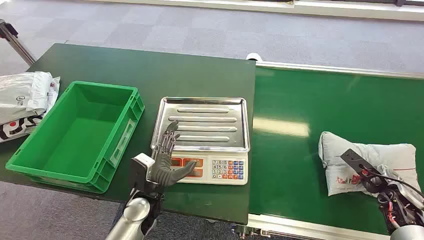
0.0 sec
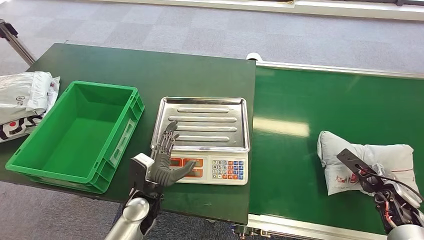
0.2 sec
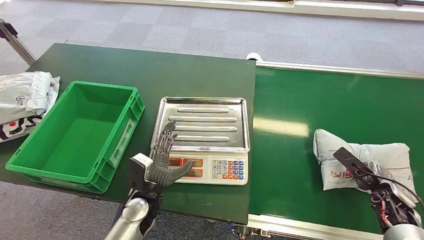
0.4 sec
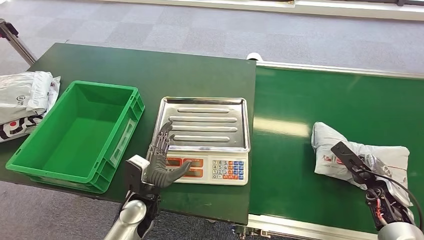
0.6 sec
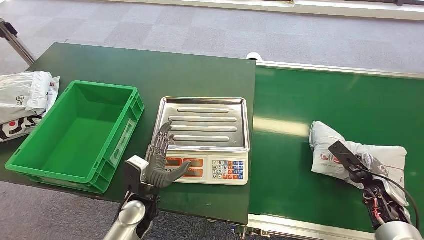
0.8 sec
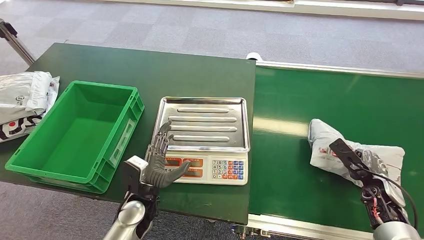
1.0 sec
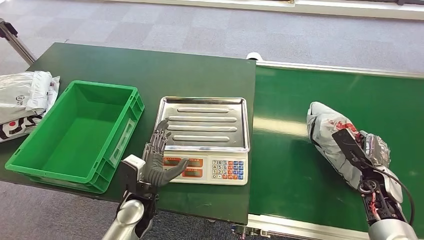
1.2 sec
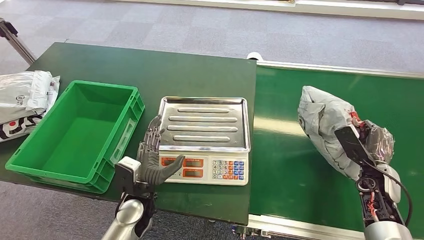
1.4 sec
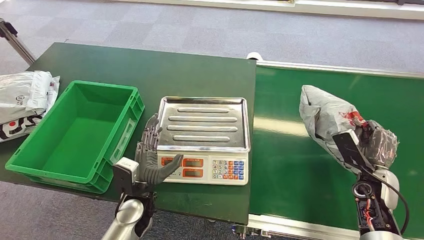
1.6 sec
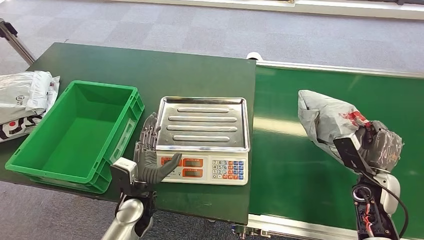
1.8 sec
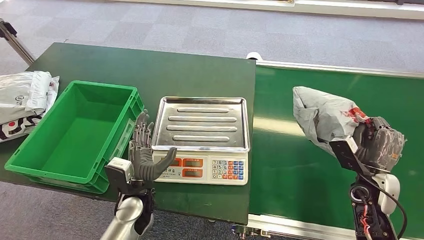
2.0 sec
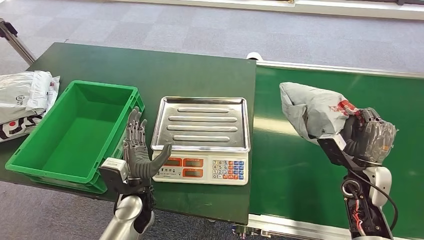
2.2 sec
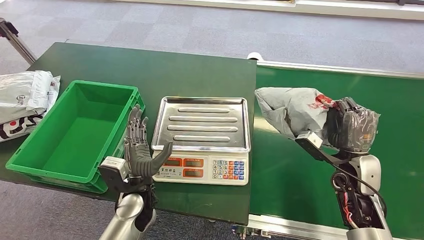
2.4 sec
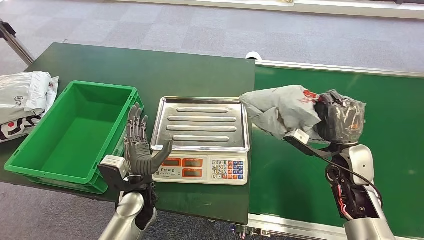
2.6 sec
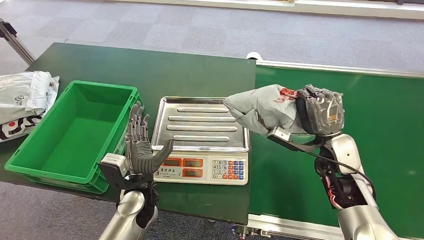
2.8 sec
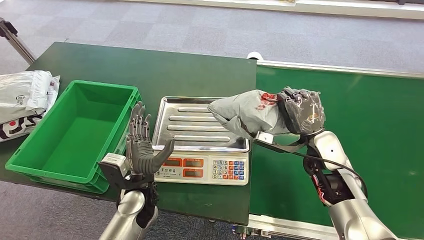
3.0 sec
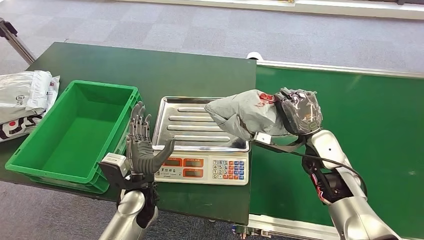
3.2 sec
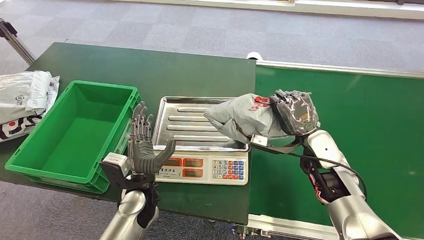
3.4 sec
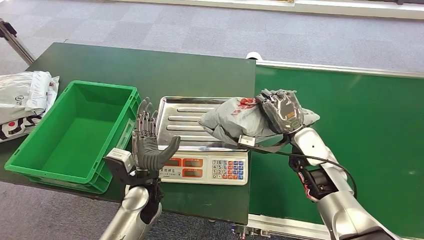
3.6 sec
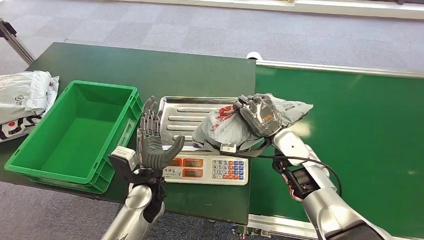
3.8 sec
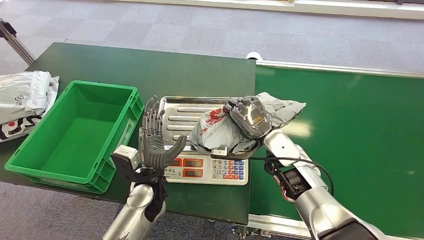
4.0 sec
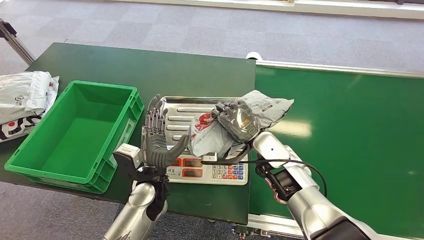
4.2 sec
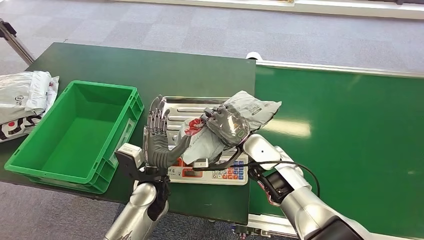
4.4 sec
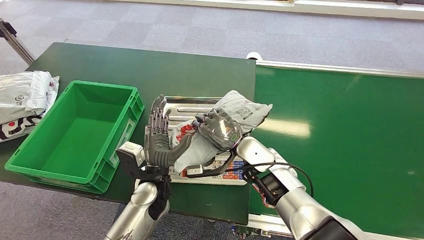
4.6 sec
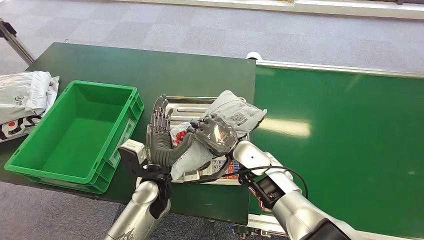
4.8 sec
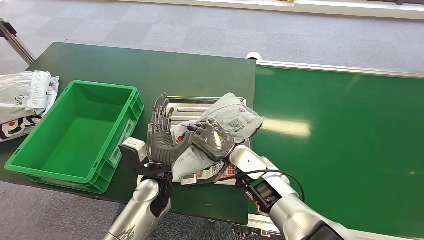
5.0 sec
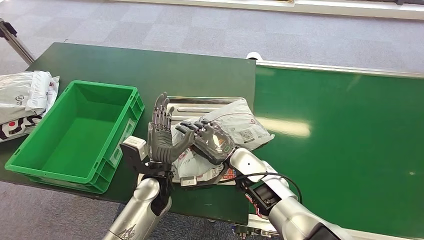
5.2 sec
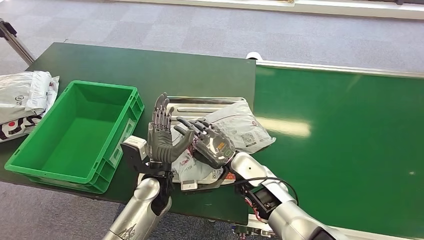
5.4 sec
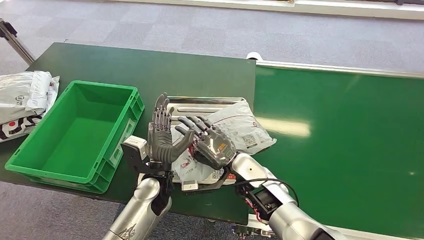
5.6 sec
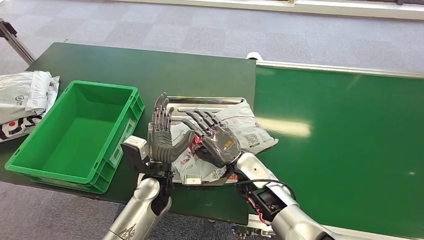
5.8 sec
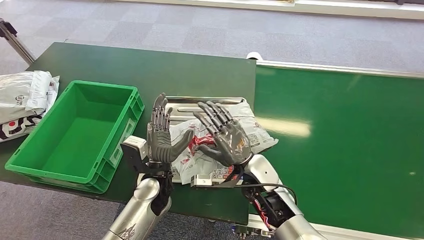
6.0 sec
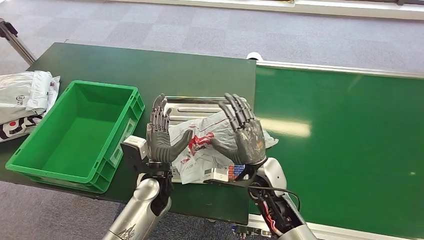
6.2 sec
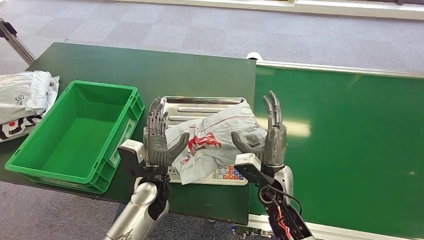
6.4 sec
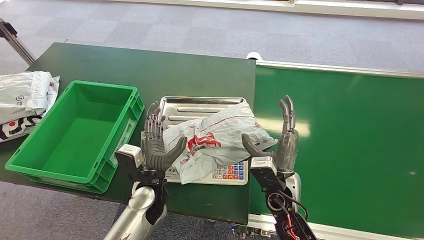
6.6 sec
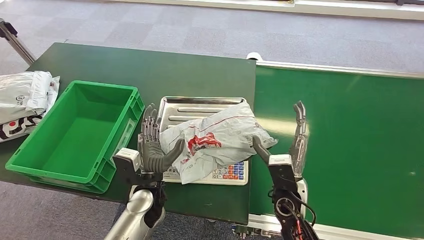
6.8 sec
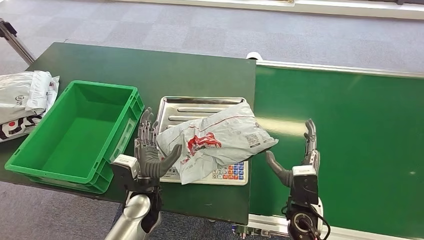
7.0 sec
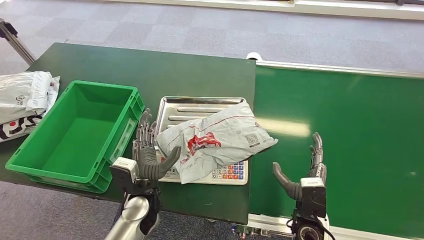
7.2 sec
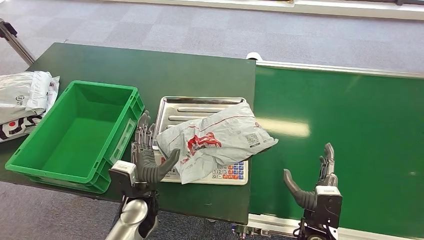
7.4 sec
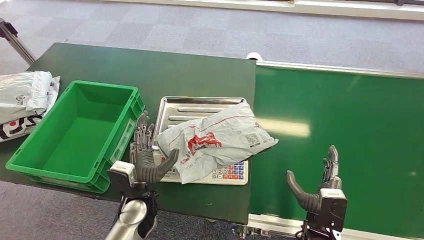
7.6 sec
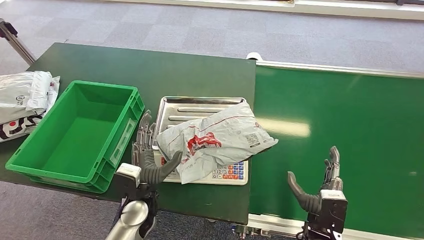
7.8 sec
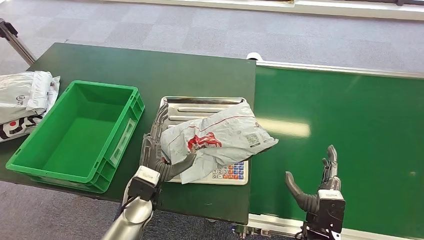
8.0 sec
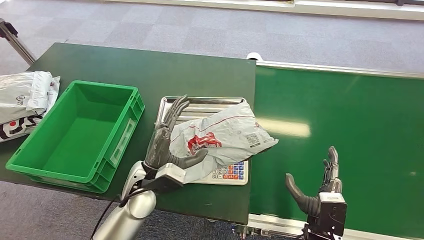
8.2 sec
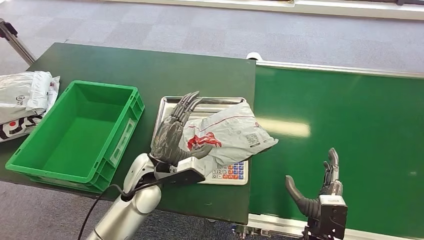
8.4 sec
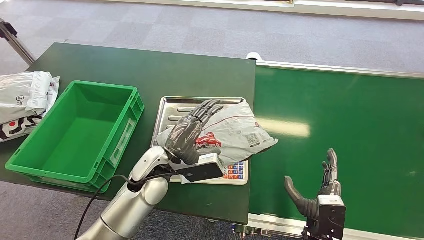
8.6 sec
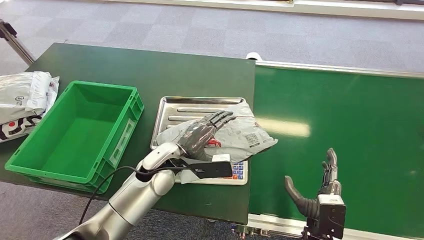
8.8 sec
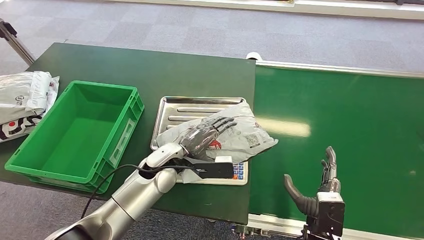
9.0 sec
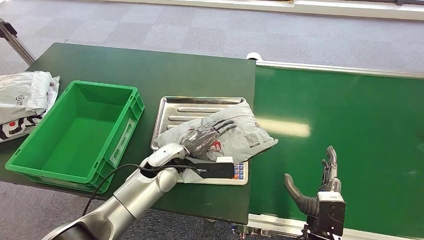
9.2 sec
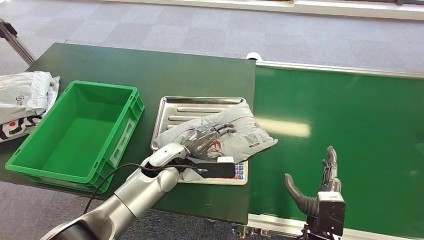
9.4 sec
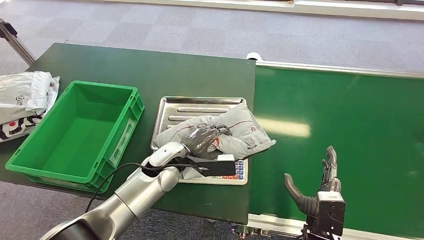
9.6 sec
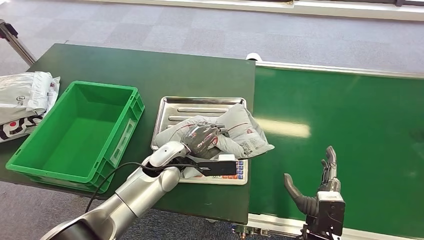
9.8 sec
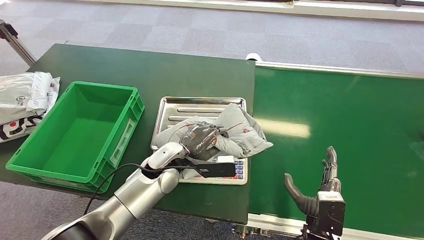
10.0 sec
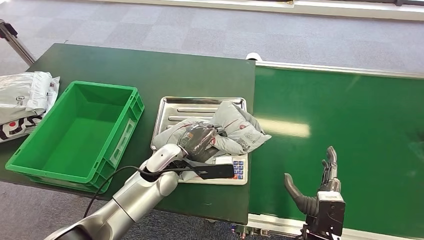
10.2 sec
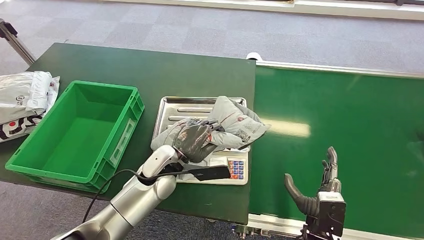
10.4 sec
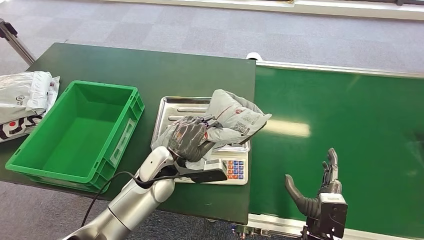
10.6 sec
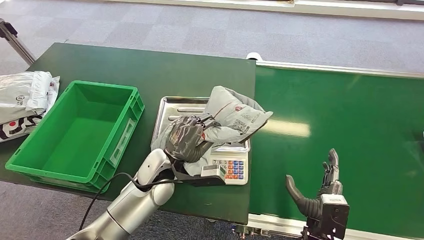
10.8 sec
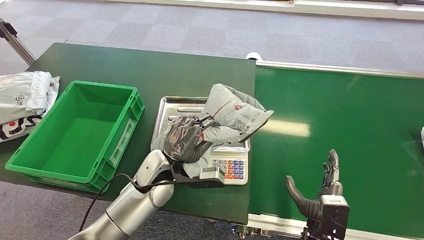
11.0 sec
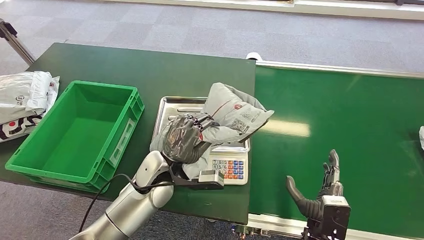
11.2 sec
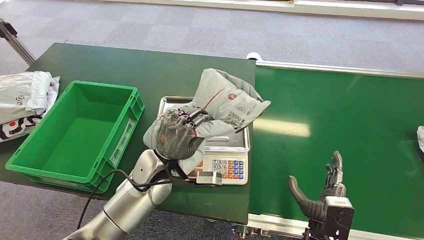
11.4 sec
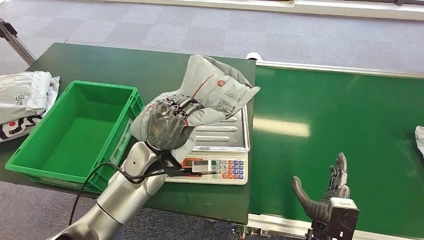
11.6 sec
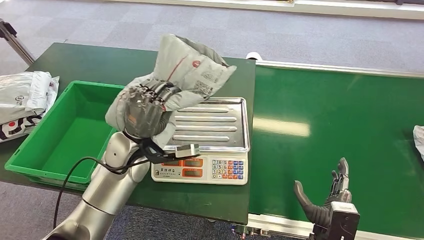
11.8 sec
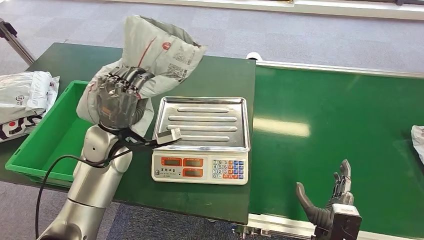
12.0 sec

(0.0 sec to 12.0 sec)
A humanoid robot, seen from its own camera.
Step, 0.0 sec - 1.6 sec: Pick up the package from the conveyor belt.
Step, 2.6 sec - 5.8 sec: Place the package onto the inbound machine.
Step, 8.8 sec - 11.6 sec: Pick up the package from the inbound machine.
1.6 sec - 3.0 sec: The right hand goes some 15 cm to the left and upward.
4.4 sec - 6.0 sec: The right hand ends up some 5 cm from where it was.
6.0 sec - 7.6 sec: The left hand changes place by about 5 cm. Meanwhile the right hand goes approximately 20 cm to the right, backward and downward.
7.6 sec - 9.0 sec: The left hand shifts about 10 cm forward and upward.
9.0 sec - 10.4 sec: The hands move only a little.

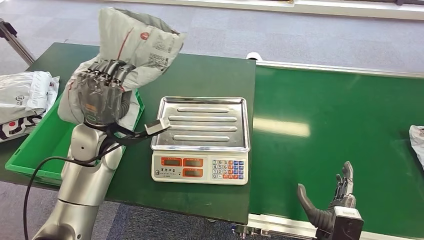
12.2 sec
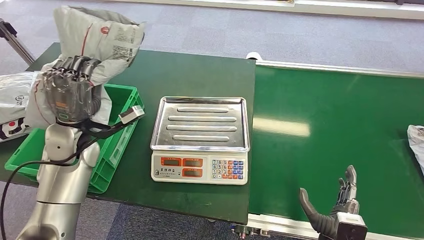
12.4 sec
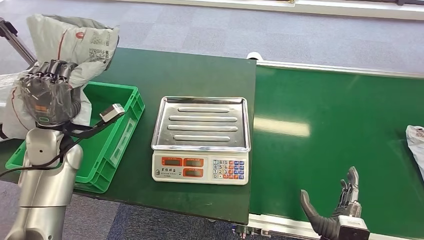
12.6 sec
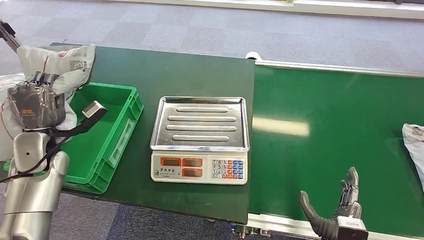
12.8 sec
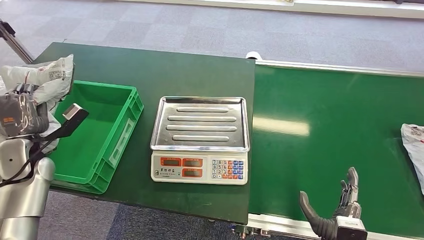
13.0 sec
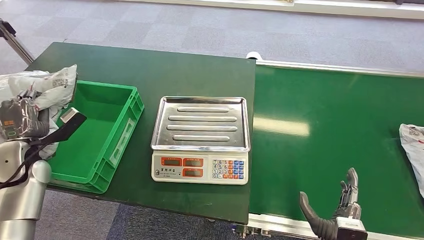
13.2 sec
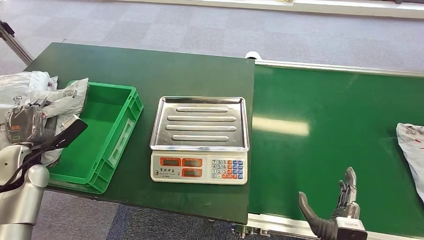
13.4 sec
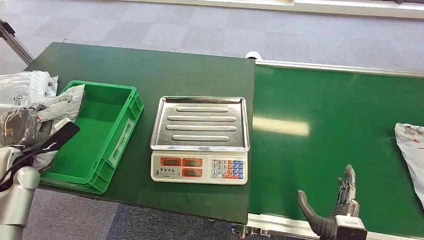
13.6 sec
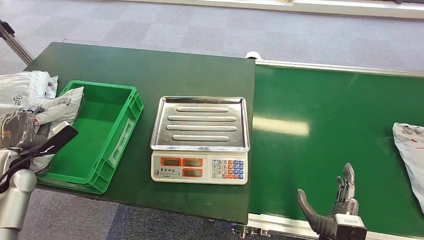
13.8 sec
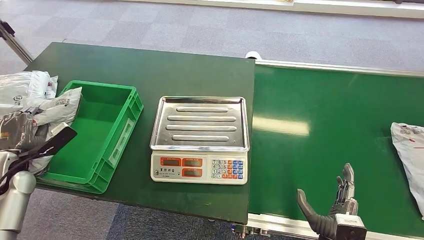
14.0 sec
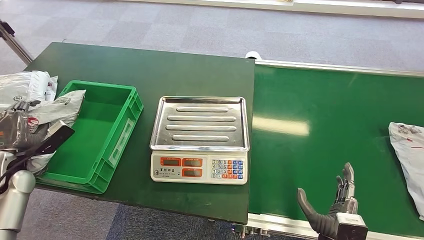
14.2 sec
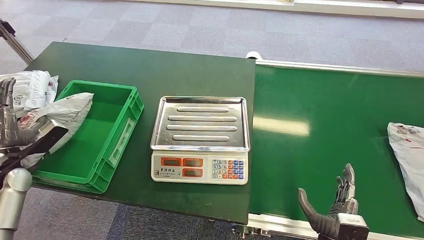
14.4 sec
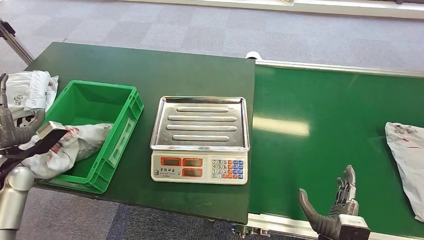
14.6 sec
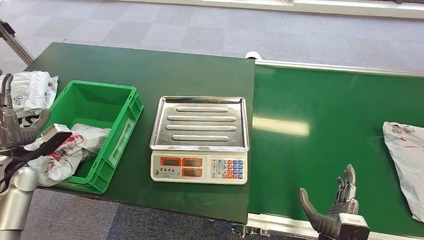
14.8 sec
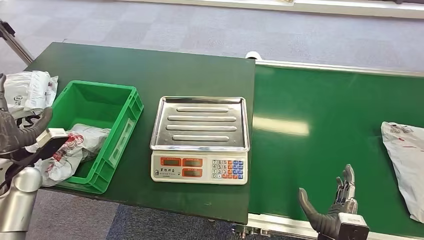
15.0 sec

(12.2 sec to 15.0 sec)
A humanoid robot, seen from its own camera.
Step, 12.2 sec - 14.8 sec: Place the package into the parcel locker.
